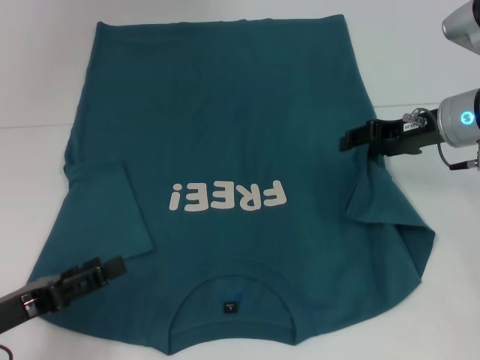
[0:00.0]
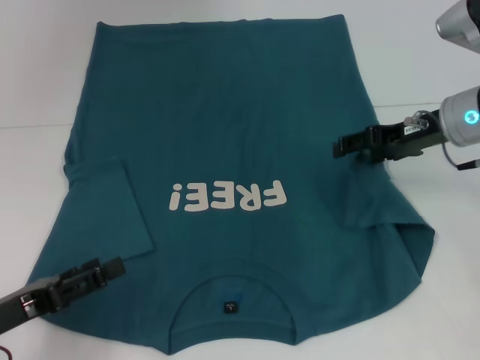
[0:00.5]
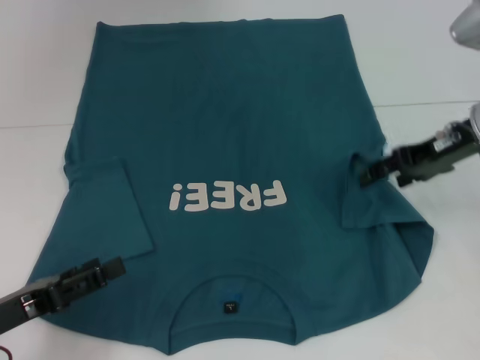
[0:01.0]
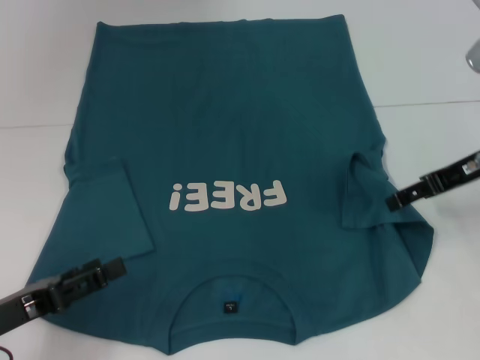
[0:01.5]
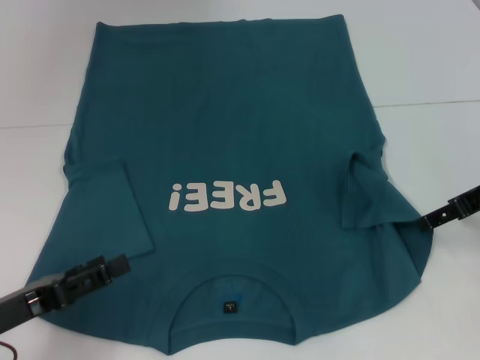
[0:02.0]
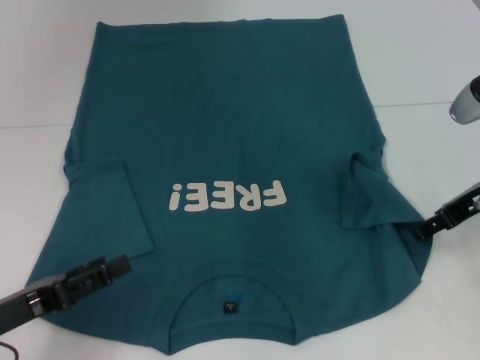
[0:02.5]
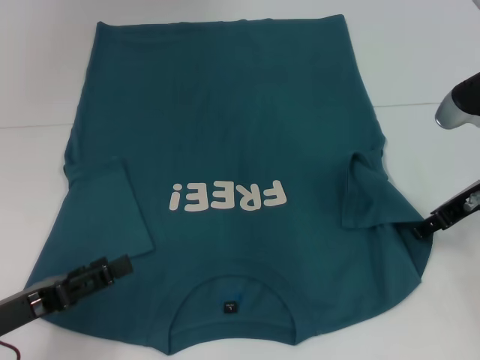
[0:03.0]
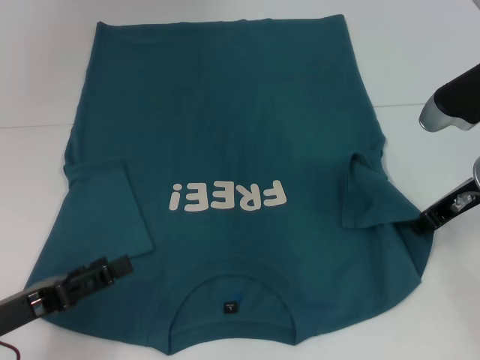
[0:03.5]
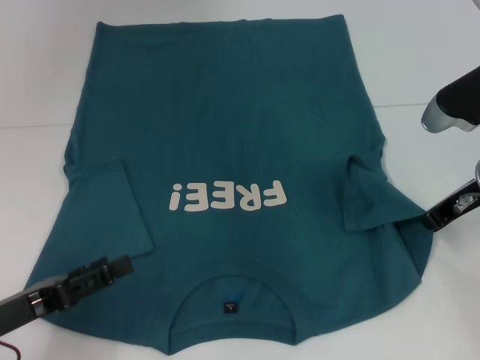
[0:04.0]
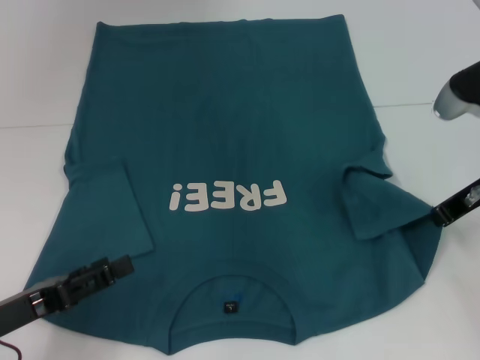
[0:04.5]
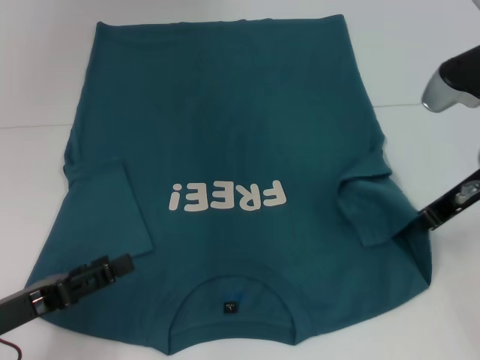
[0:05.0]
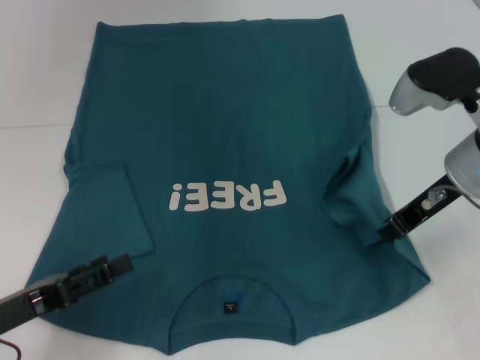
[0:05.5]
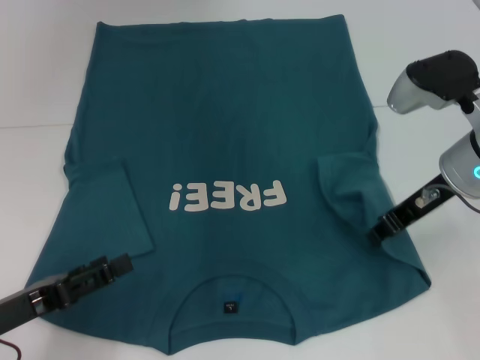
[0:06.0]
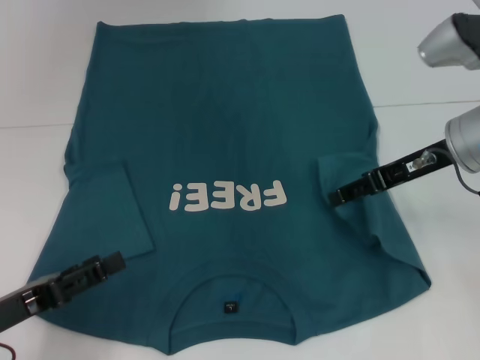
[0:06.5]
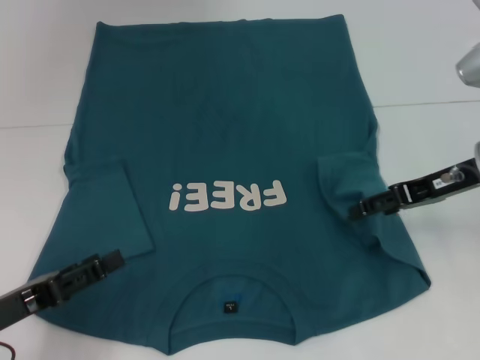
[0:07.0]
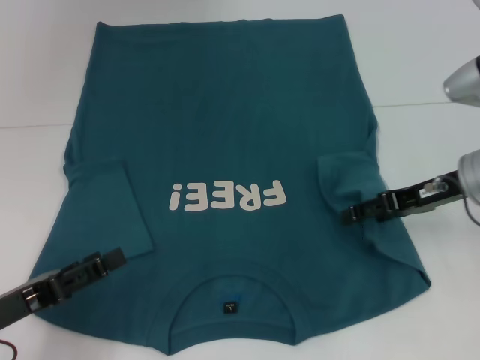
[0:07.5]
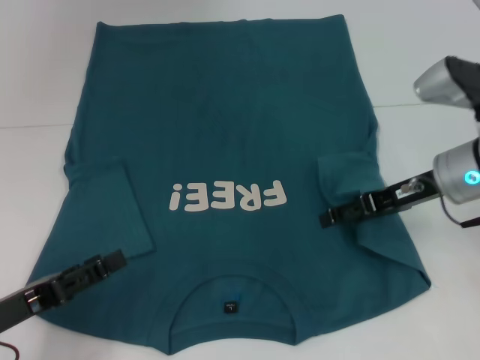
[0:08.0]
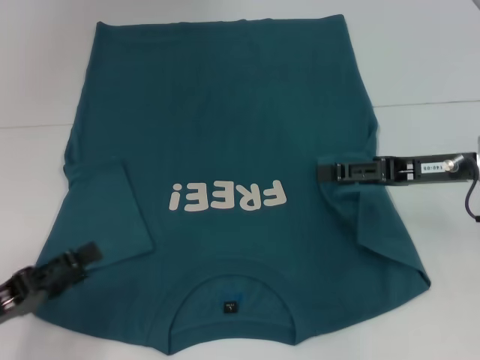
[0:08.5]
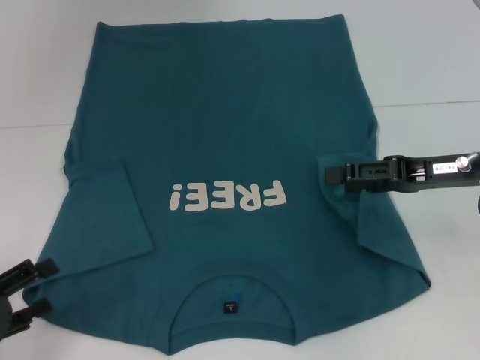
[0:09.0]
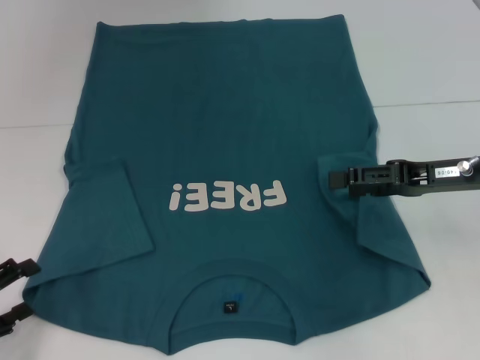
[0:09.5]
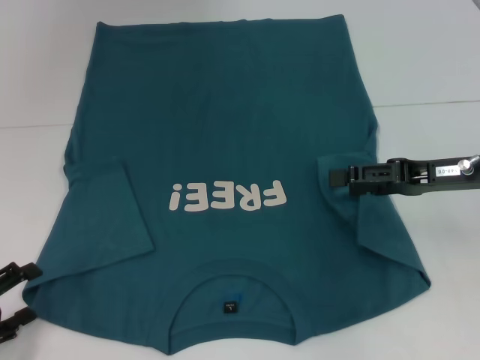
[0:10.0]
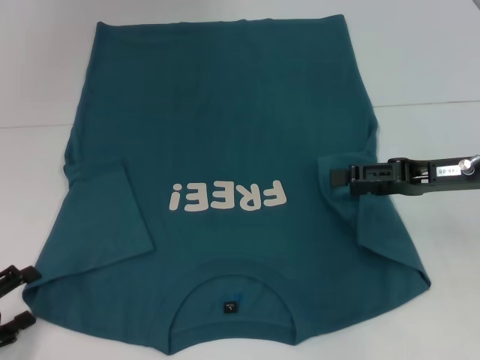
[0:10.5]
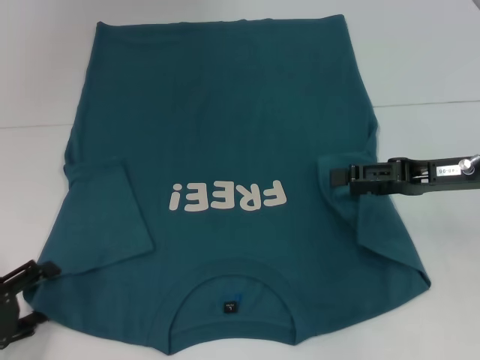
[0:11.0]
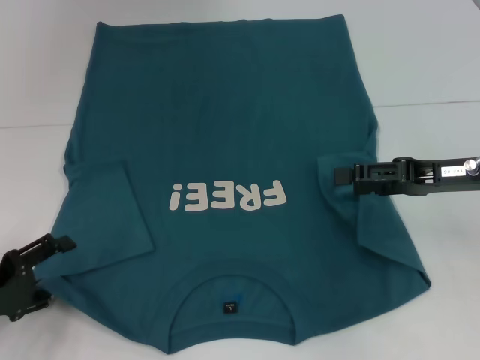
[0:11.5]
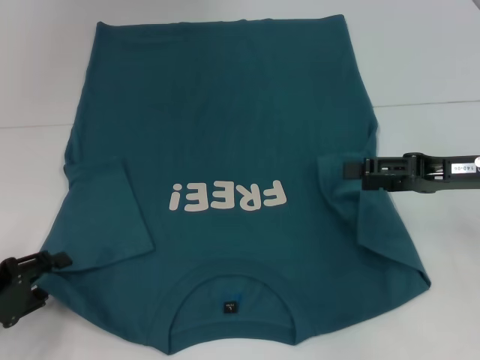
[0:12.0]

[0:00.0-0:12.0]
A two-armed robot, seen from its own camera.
Step, 0:00.0 to 0:08.0: Fold the bottom right sleeve to the right.
0:00.0 to 0:02.0: The right gripper goes roughly 10 cm backward and to the right, and opens its fingers.
0:02.0 to 0:04.0: The right gripper closes its fingers.
0:04.0 to 0:06.0: The grippers move only a little.
0:06.0 to 0:08.0: The right gripper opens its fingers.
0:08.0 to 0:10.0: The left gripper is displaced to the left by approximately 5 cm, while the right gripper ends up some 5 cm from where it was.
0:10.0 to 0:12.0: The grippers make only small movements.

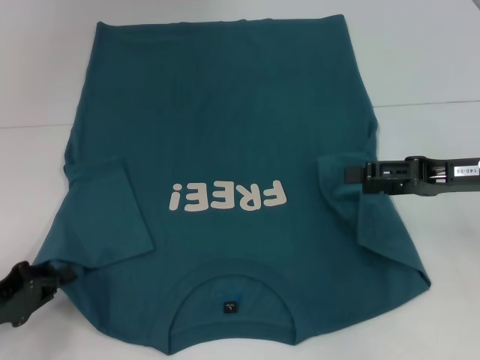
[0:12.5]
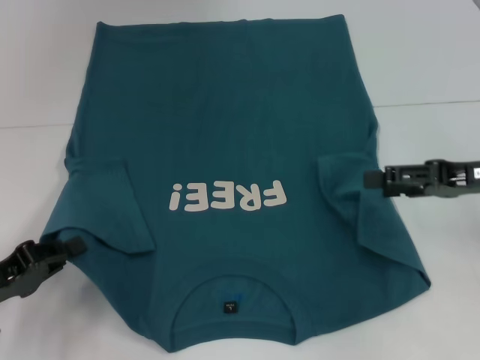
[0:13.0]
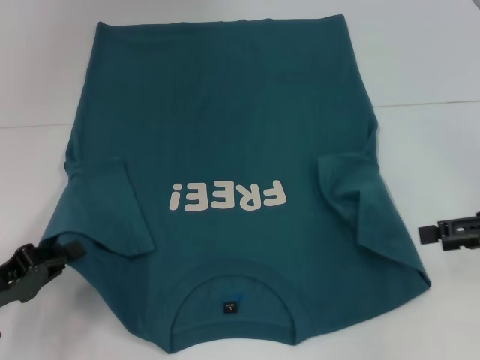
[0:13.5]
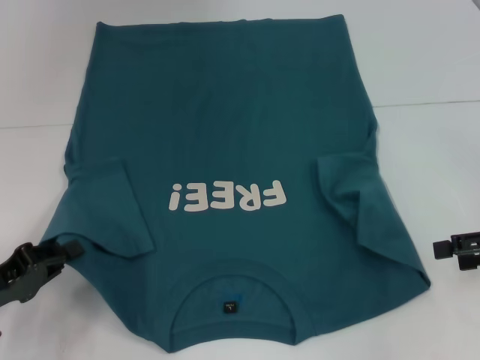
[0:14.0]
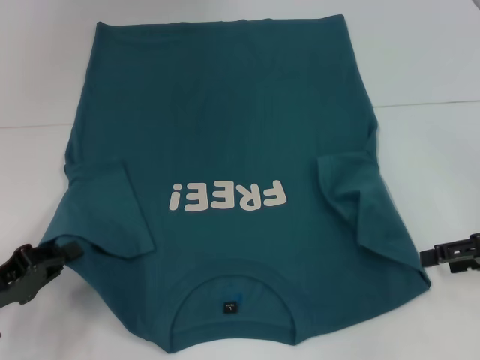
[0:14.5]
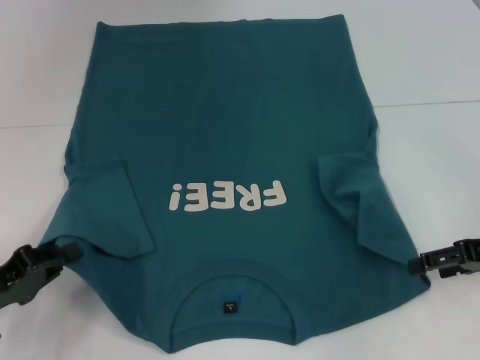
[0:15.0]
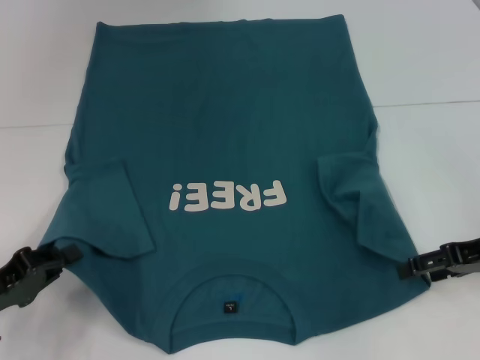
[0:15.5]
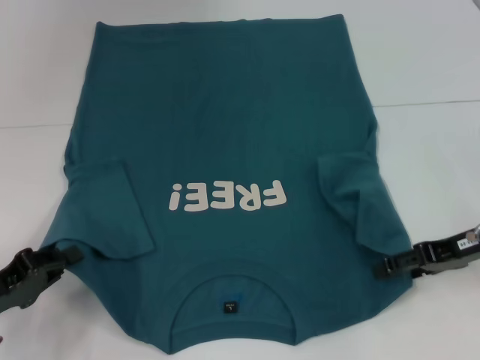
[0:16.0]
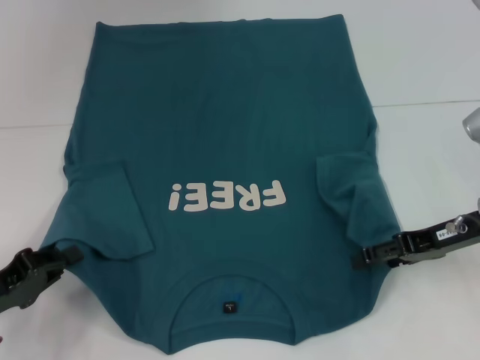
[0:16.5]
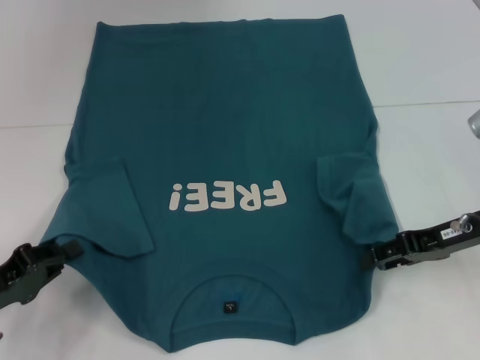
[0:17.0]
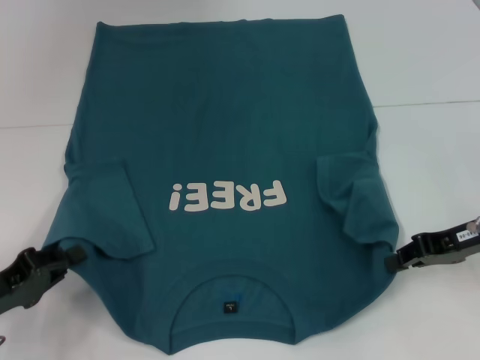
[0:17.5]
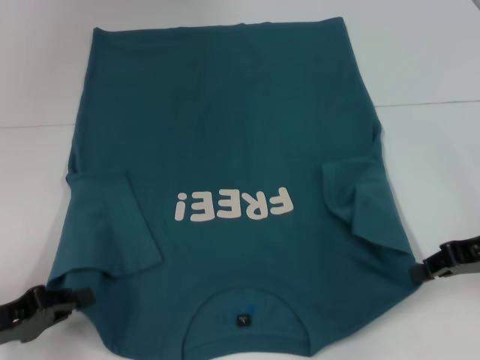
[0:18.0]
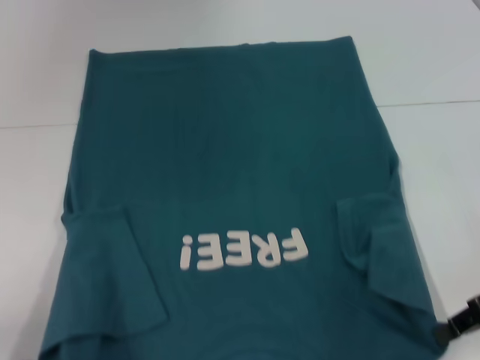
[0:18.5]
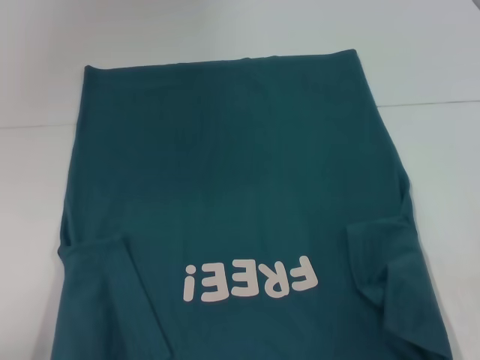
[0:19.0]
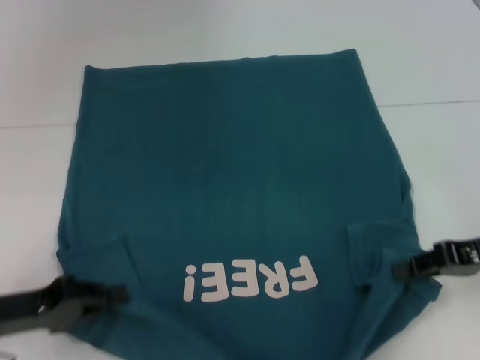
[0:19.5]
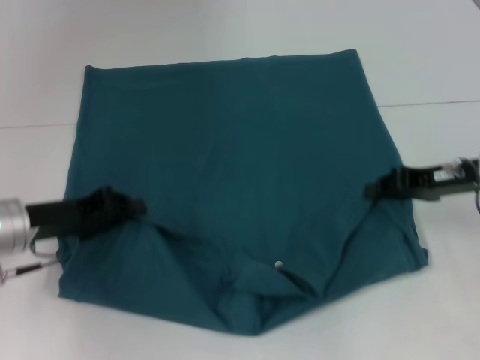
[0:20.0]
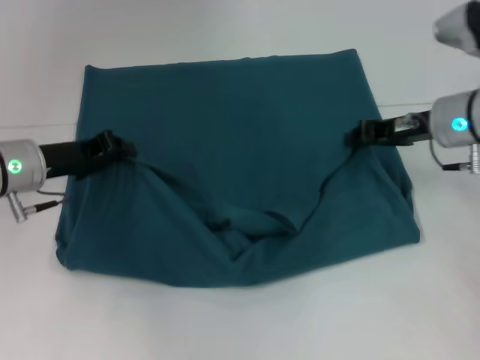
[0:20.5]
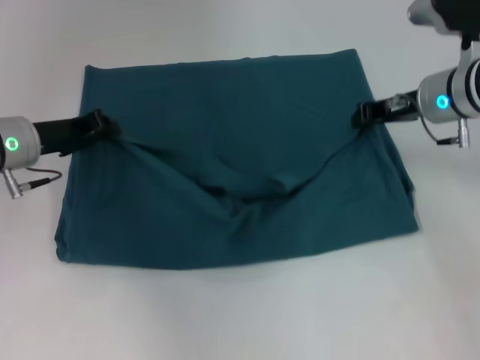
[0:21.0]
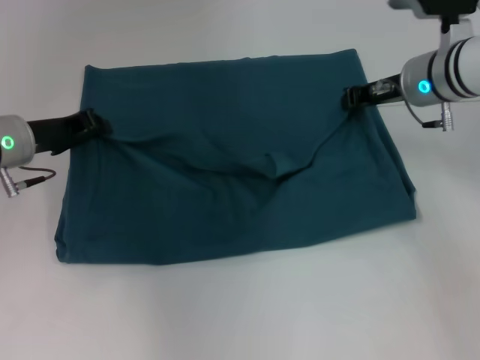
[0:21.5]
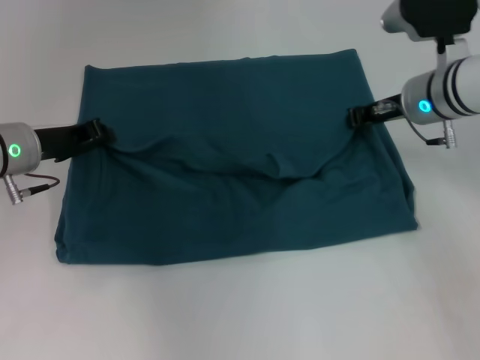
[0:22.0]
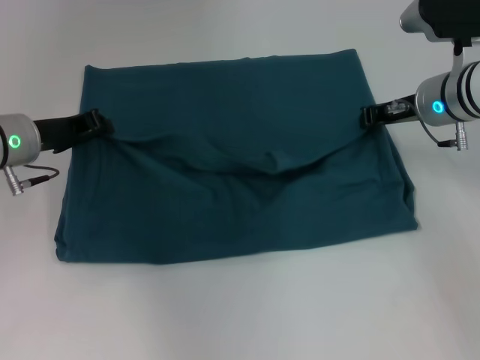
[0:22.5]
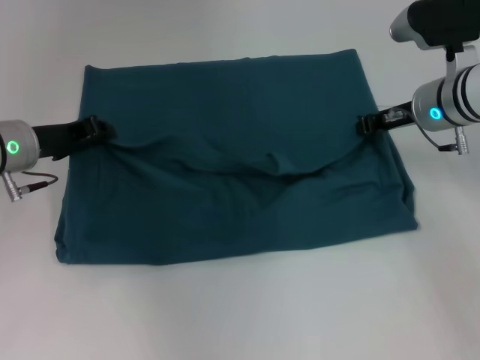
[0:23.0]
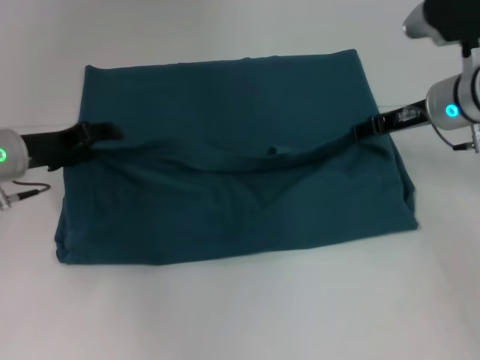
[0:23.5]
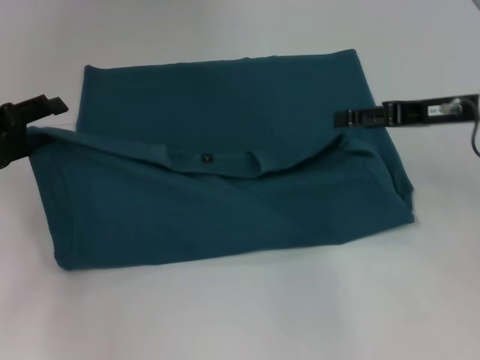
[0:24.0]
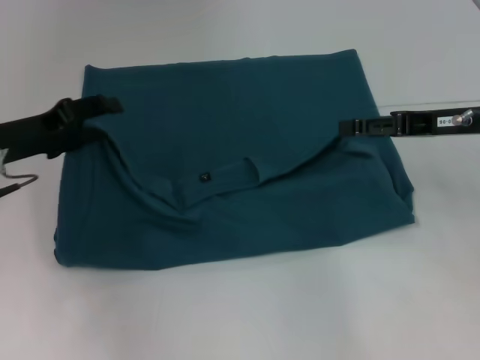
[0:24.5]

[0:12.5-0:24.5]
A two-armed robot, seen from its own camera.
Step, 0:12.5 to 0:17.0: Grab the bottom right corner with your right hand.
0:12.5 to 0:14.5: The right gripper goes some 5 cm to the right.
0:14.5 to 0:16.5: The right gripper heads to the left, covering about 5 cm.
0:16.5 to 0:18.5: The two grippers go roughly 5 cm backward. The right gripper closes.
0:18.5 to 0:20.5: The left gripper travels forward by roughly 20 cm. Meanwhile the right gripper travels forward and to the left by approximately 15 cm.
0:20.5 to 0:22.5: There are only small adjustments of the grippers.
0:22.5 to 0:24.5: The left gripper opens its fingers. Meanwhile the right gripper is displaced backward by some 10 cm, and opens.

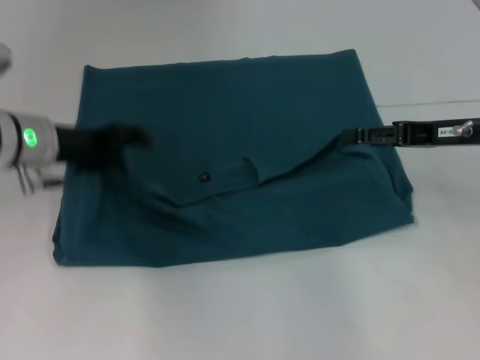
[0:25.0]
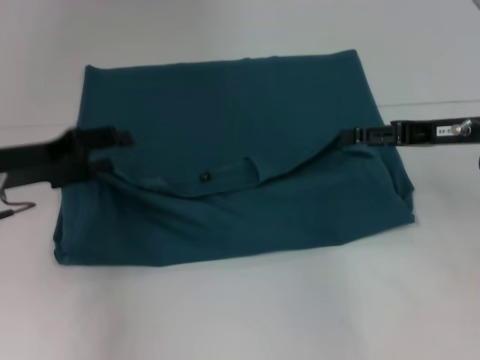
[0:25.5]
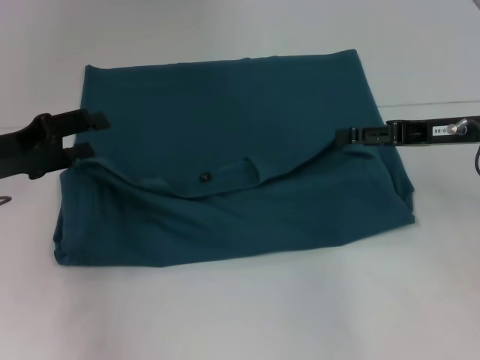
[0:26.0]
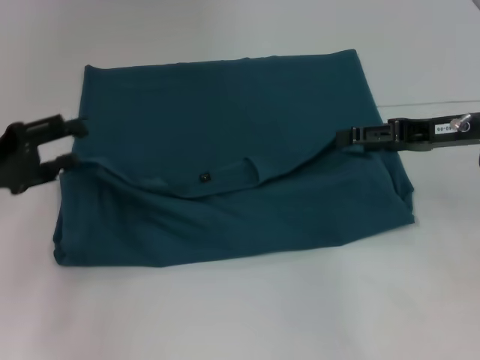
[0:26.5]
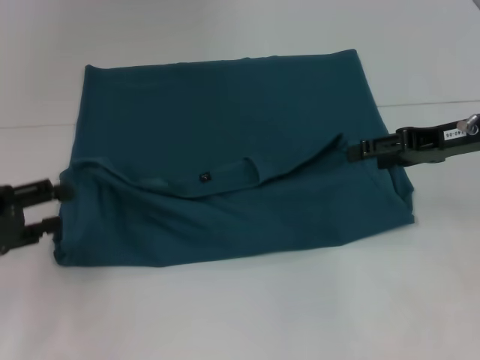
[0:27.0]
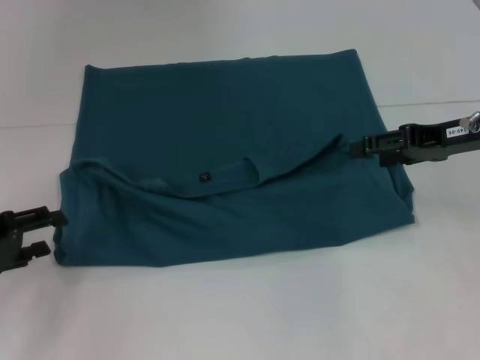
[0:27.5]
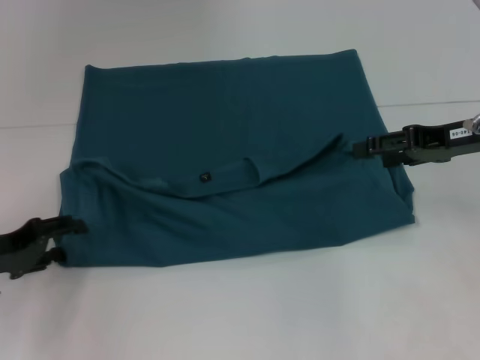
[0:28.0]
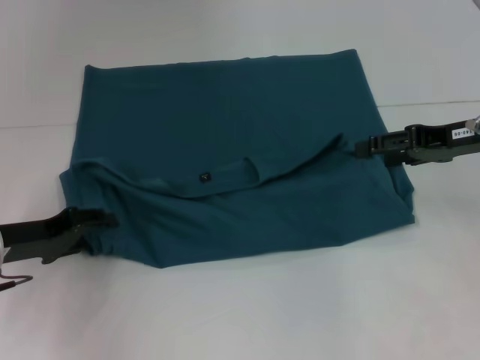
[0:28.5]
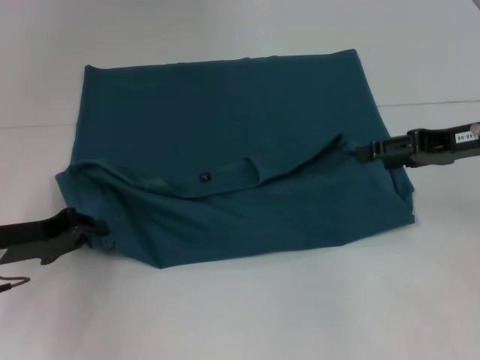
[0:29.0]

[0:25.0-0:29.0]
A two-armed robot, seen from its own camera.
0:25.0 to 0:27.0: The left gripper goes some 15 cm backward and to the left.
0:27.0 to 0:29.0: The left gripper shifts by about 5 cm, and closes.
